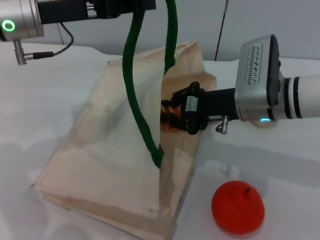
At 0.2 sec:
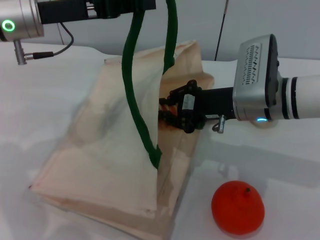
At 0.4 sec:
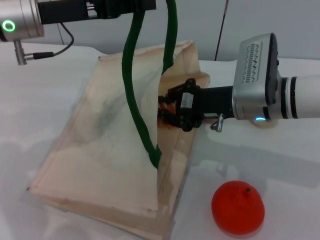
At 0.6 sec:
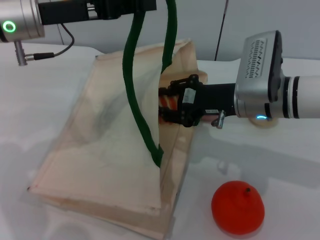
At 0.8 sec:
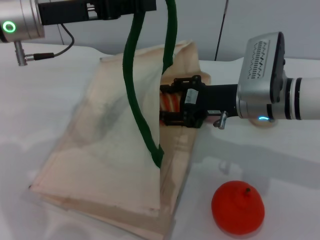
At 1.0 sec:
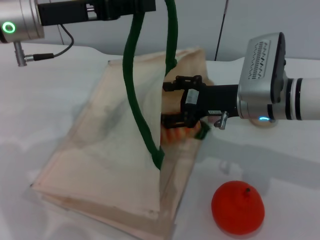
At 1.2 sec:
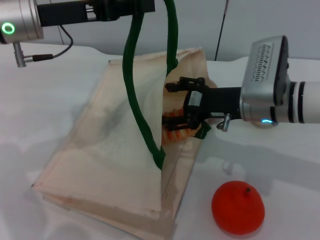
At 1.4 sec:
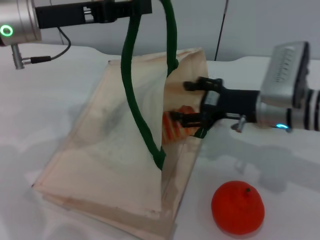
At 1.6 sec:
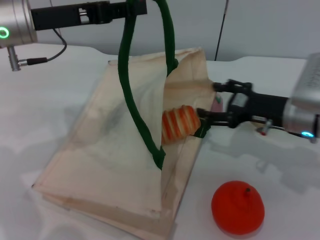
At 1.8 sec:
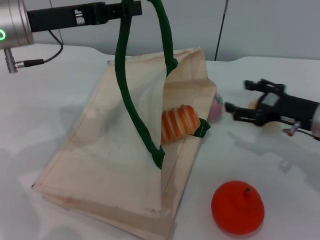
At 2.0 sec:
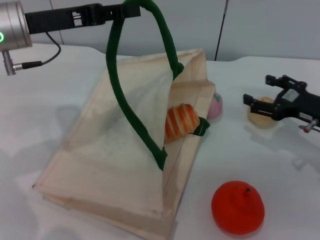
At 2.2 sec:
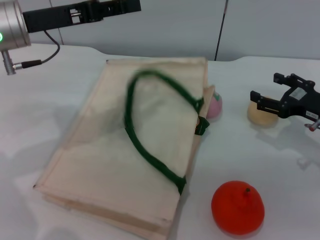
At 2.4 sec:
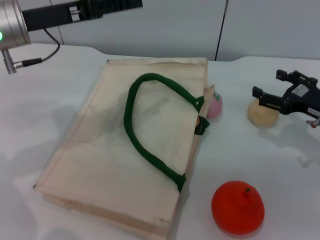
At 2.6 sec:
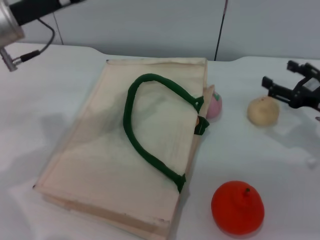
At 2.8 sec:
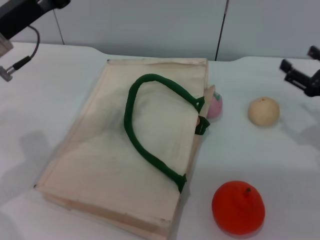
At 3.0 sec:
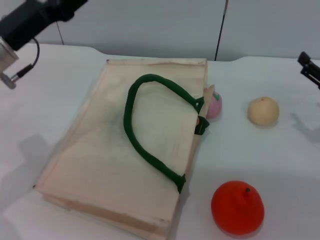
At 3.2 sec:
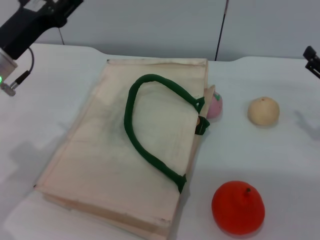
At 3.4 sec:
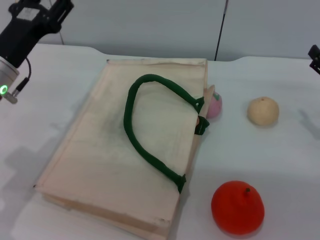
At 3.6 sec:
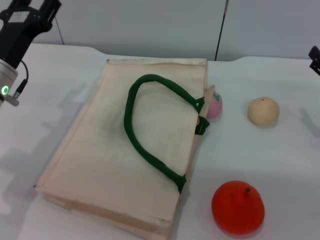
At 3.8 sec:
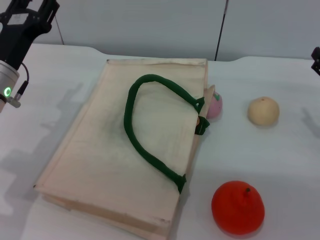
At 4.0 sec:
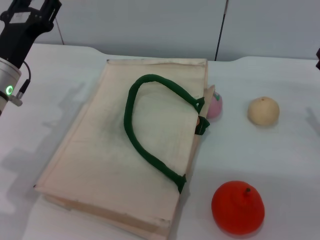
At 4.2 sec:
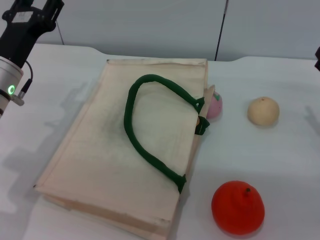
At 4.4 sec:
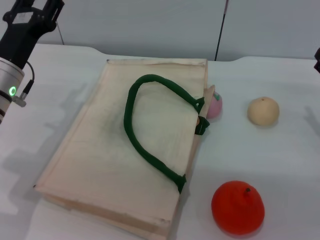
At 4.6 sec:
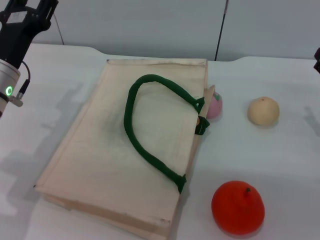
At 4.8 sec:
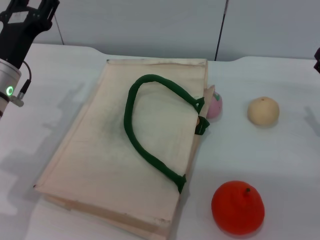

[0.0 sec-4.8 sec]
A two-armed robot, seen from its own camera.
Task of the whole recording: pick up the bread from the table and place it in the white handbag.
Step, 1.8 sec to 3.4 sec: Lower the woven bag with the left gripper to close it.
0.0 sec to 1.6 sec: The right gripper travels to the right by some 10 cm, and opens.
1.6 sec to 3.2 sec: The left gripper is displaced downward by approximately 5 cm, and opens up. Meanwhile the right gripper travels to the right by about 10 cm.
